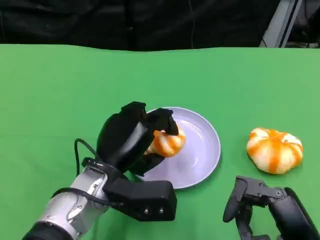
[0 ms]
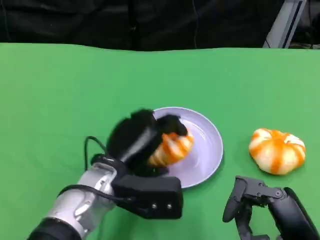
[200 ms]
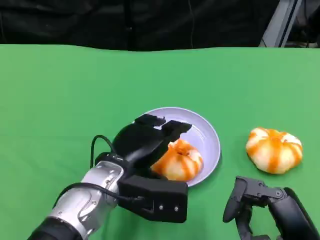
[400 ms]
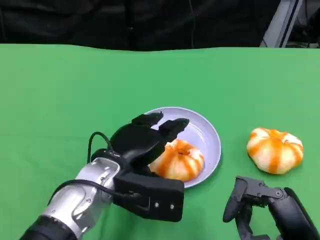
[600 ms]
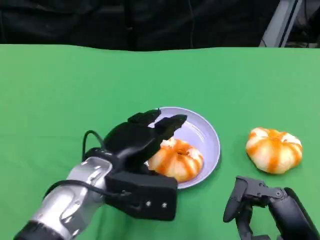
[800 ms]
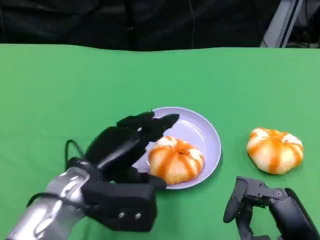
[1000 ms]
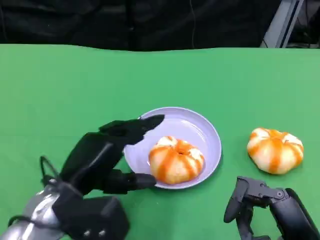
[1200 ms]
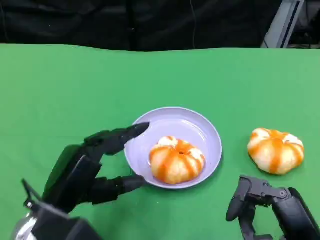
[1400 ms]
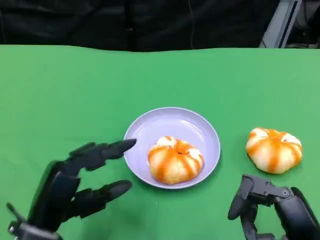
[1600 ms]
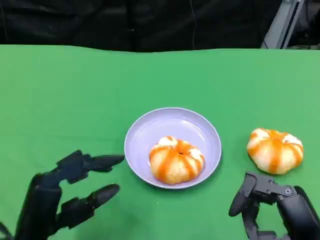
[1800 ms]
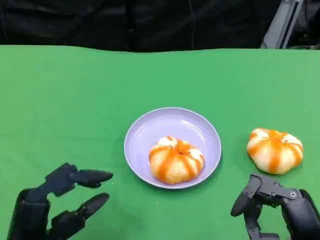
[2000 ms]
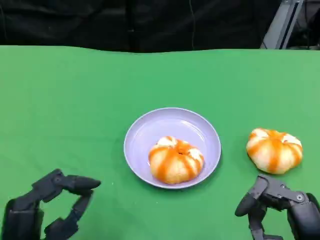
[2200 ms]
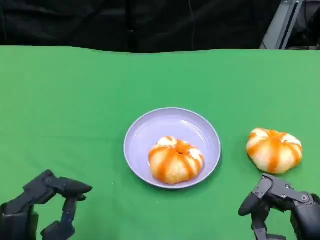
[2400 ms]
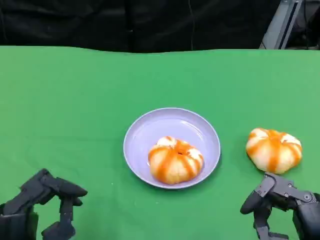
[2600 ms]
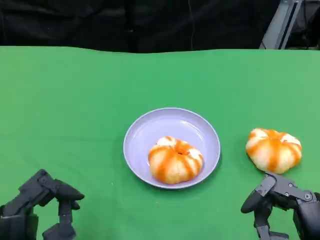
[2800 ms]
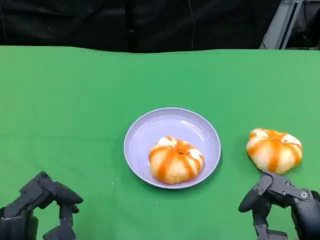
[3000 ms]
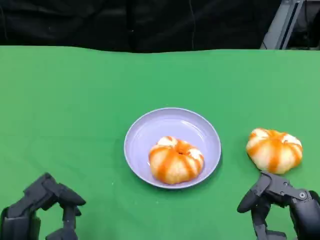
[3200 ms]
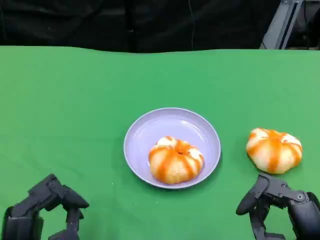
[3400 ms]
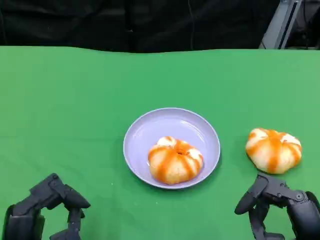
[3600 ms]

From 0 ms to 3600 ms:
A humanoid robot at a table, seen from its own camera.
Task of the whole recording: Grasp the bread from the table and place it into the plate.
From 0 ms to 1800 ms: The left hand moves backward and to the left, roughly 15 cm.
From 1800 ms to 3600 ms: There are only small adjustments of the hands.

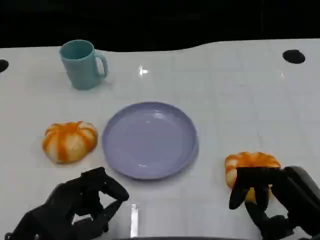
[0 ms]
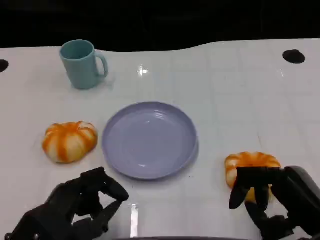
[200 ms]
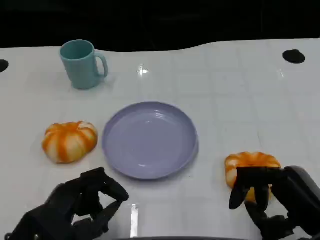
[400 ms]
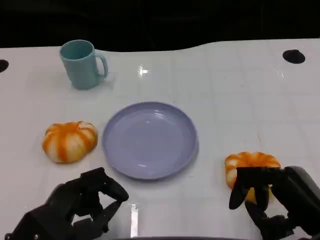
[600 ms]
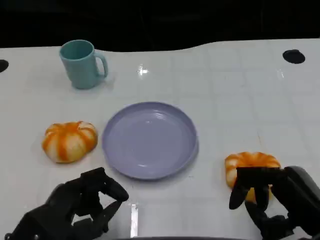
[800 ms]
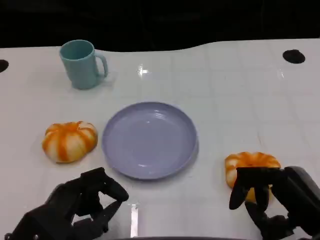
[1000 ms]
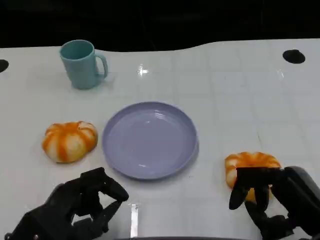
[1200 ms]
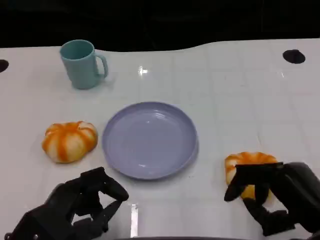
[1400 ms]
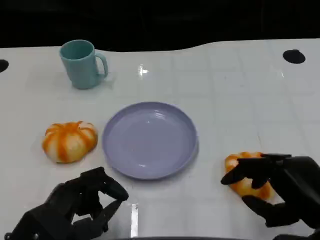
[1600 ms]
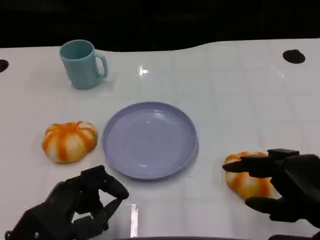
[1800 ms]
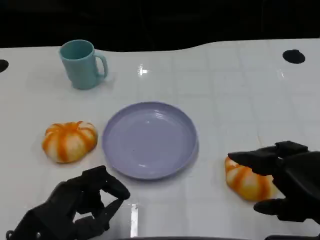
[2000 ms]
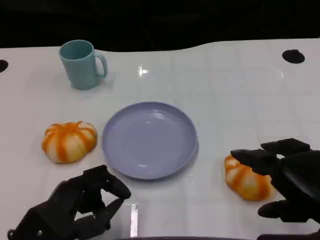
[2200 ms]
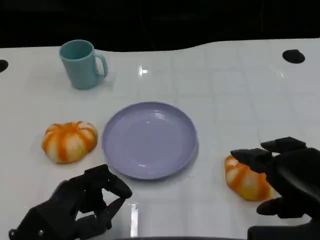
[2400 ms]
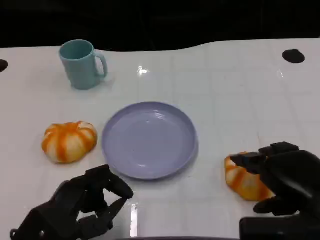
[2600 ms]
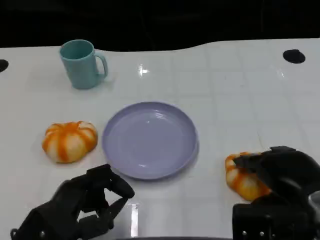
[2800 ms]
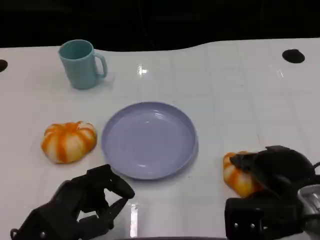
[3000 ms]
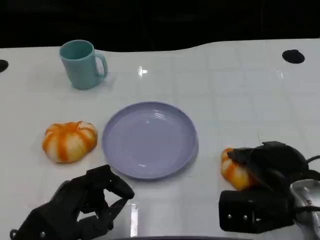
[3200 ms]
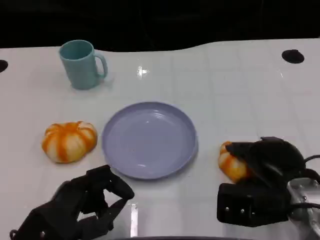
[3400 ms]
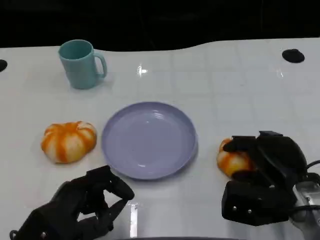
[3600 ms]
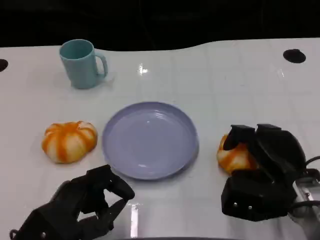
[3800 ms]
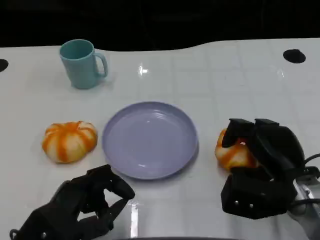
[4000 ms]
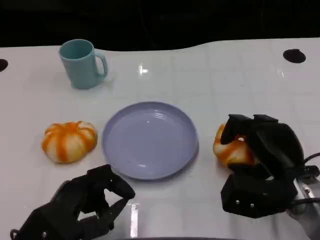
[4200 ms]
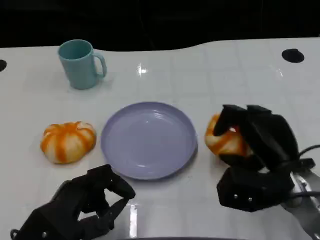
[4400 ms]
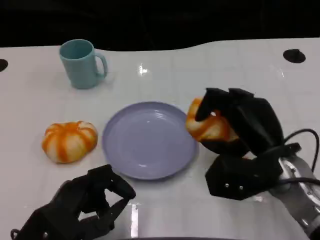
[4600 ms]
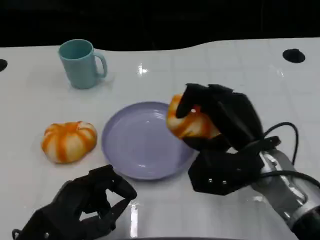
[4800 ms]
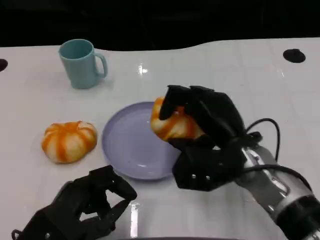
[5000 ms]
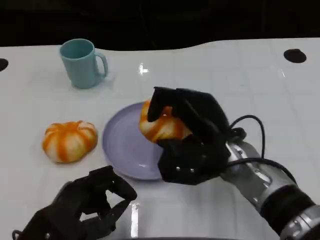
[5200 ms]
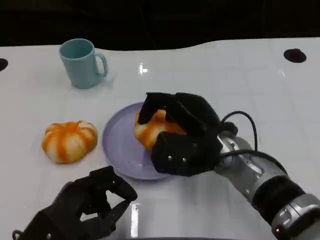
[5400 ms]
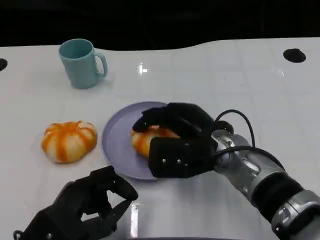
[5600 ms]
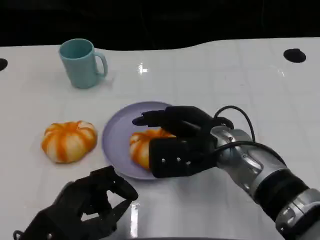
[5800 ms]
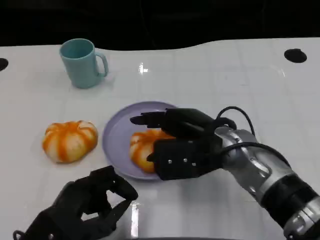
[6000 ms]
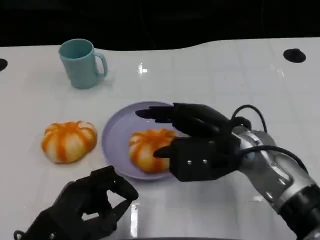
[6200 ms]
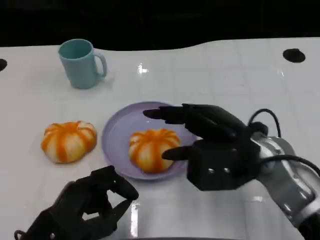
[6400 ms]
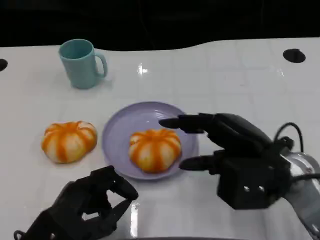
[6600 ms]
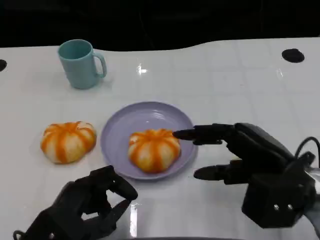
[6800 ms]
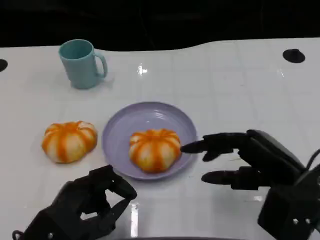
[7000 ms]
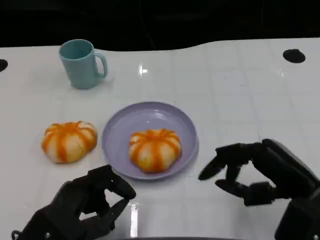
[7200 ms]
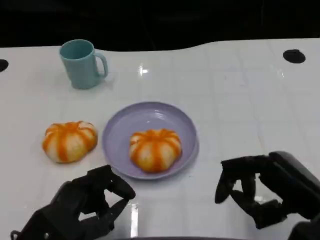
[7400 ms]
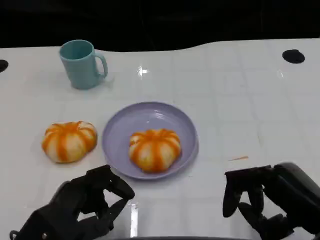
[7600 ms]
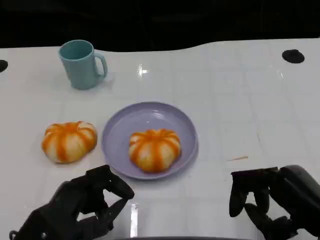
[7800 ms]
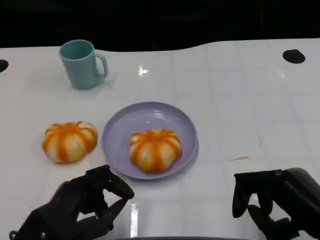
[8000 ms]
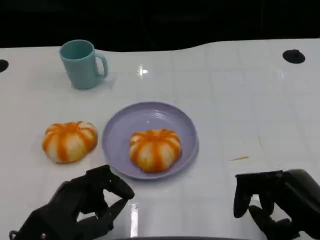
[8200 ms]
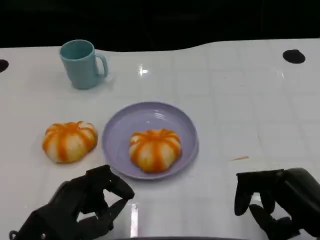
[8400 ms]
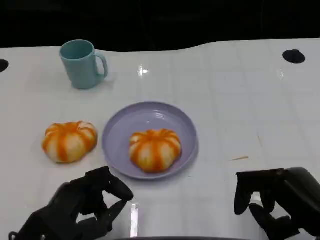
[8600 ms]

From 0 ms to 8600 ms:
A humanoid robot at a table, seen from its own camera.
Task of the whole recording: Grasp the bread from the table and place it into the plate.
From 0 ms to 1400 ms: The hands make only small movements.
From 2800 ms to 4400 ms: The right hand moves approximately 5 cm.
From 4400 ms to 5800 ms: The right hand goes approximately 10 cm to the left.
From 5800 ms to 7200 ms: The right hand goes roughly 15 cm to the right and backward.
From 7200 ms to 8600 ms: The hands stay close to where they were, moving slightly.

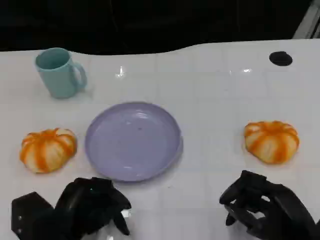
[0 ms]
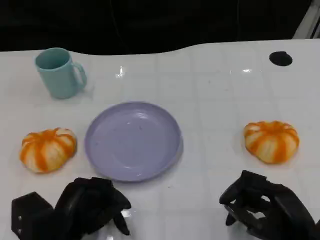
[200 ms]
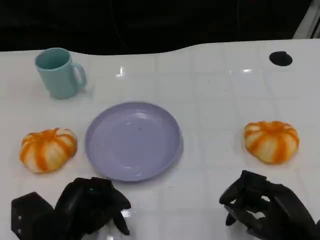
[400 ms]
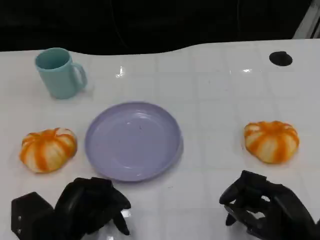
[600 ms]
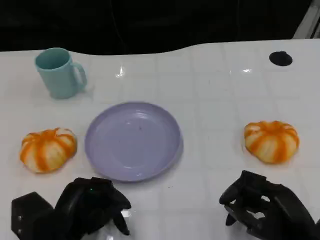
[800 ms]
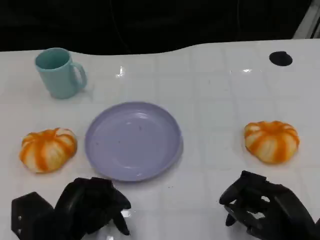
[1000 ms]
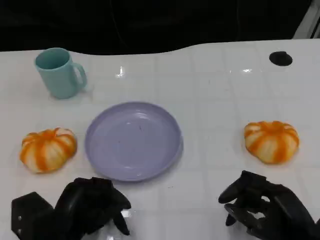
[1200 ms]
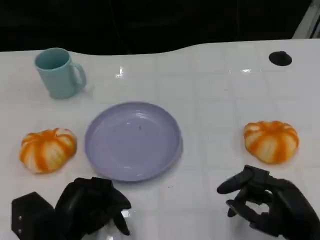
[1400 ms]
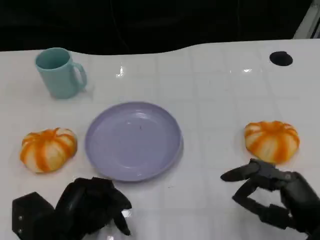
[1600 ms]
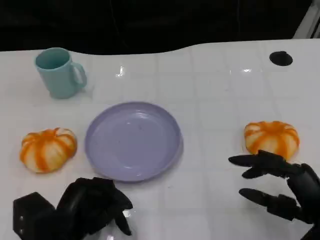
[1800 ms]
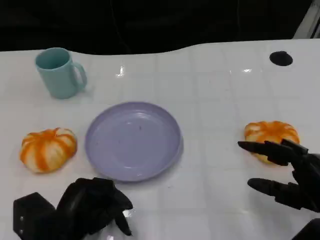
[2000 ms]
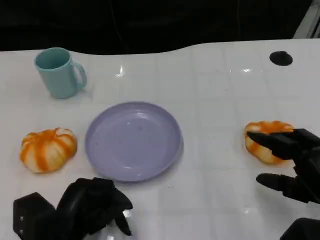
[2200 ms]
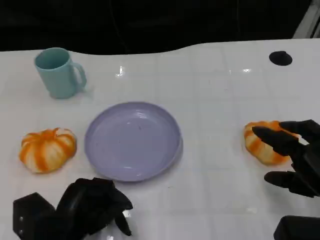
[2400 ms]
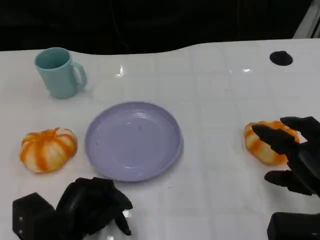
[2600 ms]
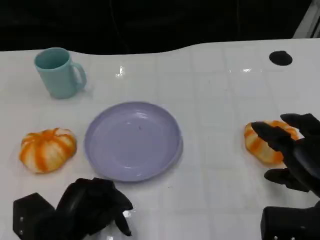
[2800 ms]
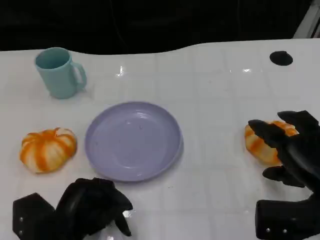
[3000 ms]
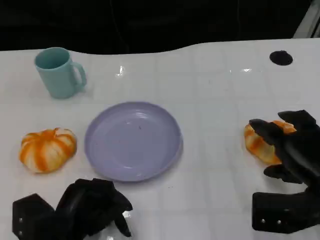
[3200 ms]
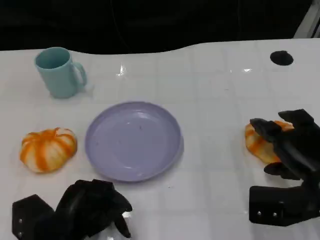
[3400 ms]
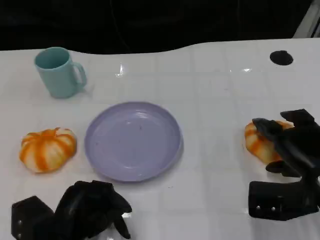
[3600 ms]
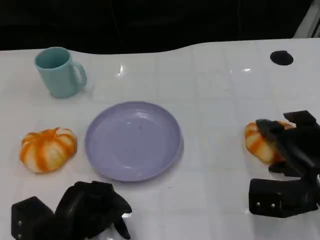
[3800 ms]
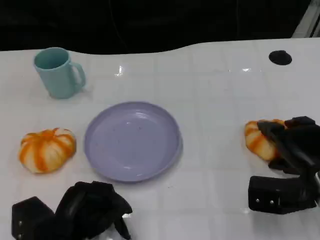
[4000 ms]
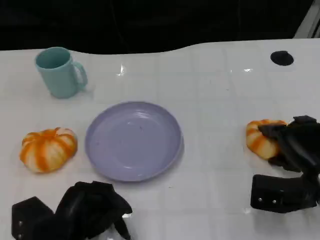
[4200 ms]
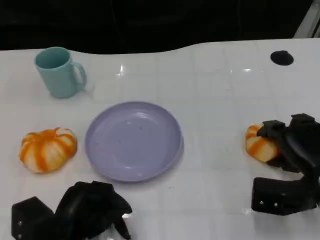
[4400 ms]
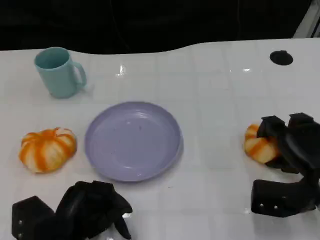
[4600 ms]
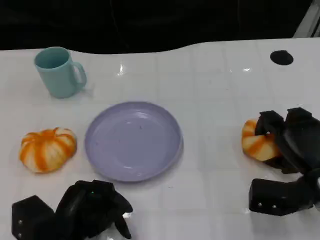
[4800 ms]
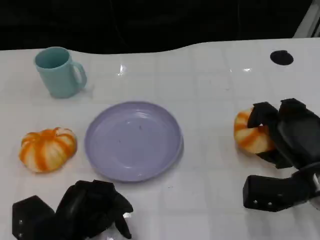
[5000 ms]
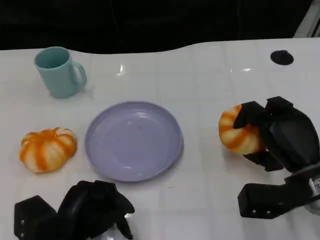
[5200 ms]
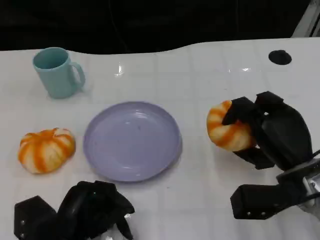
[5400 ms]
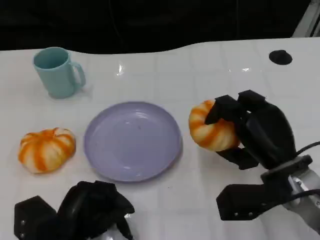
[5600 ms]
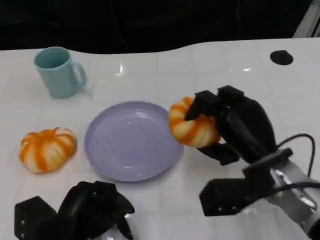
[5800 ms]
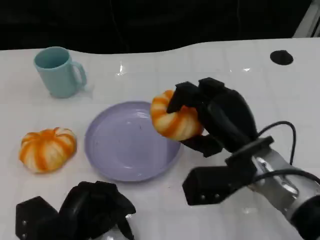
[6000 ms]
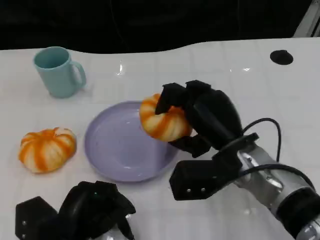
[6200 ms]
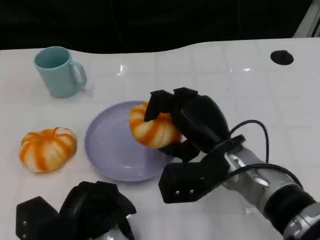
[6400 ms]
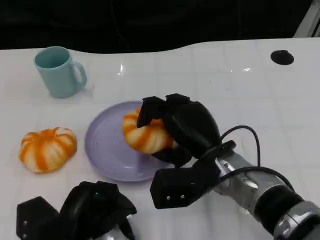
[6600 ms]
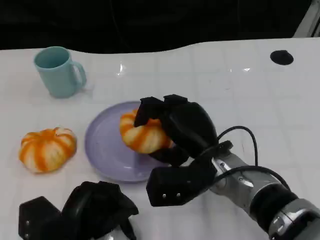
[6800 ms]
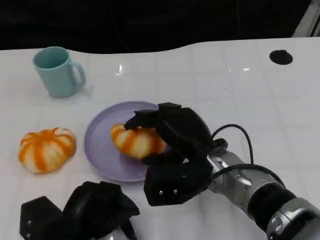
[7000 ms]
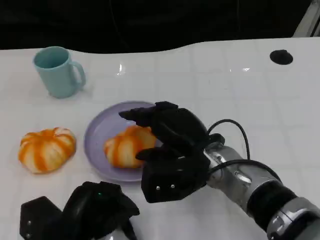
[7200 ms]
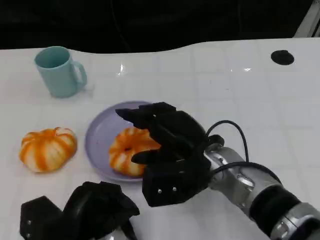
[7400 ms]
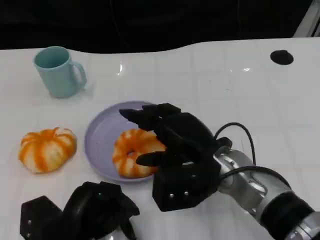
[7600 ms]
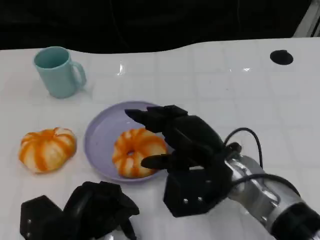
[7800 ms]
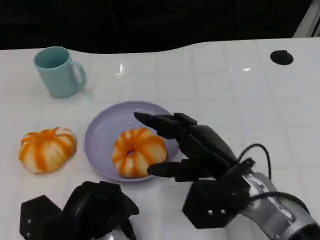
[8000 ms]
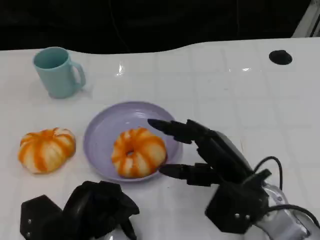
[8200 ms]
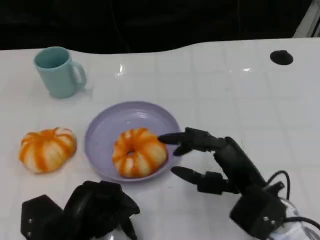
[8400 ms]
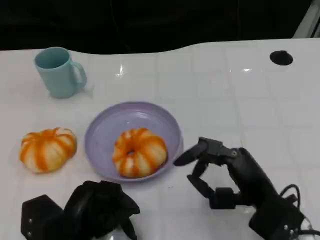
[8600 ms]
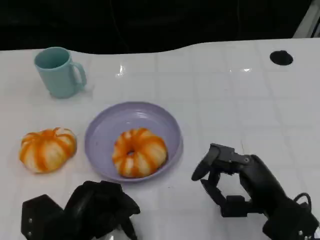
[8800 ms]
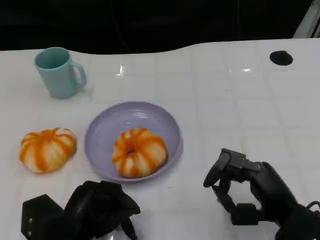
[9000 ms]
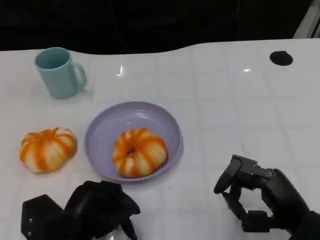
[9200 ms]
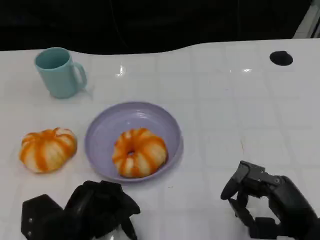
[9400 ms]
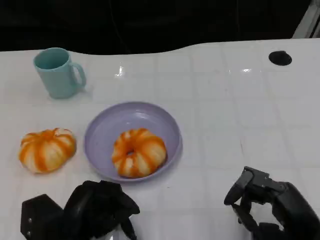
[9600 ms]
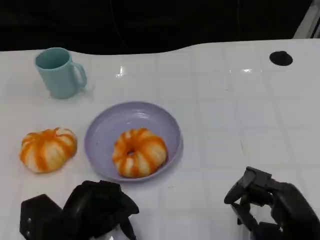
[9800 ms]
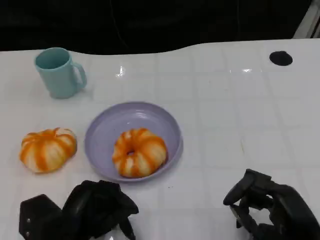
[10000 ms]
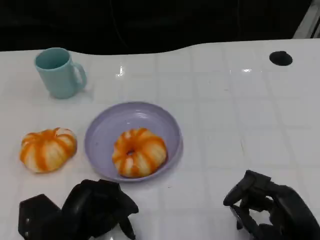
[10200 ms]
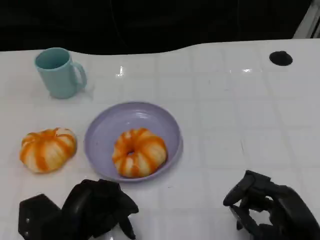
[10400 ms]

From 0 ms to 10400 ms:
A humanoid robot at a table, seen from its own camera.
Task of the whole recording: Grasp the bread from the table and place it into the plate.
From 0 ms to 1400 ms: The hands move only a little.
From 1400 ms to 3000 ms: The right hand moves forward, roughly 5 cm.
From 3000 ms to 4400 ms: The right hand ends up approximately 5 cm from where it was.
From 4400 ms to 6000 ms: The right hand shifts approximately 15 cm to the left and upward.
From 6000 ms to 7400 ms: The right hand moves to the left, roughly 5 cm.
From 7400 ms to 9000 ms: The right hand shifts roughly 15 cm to the right and backward.
From 9000 ms to 10400 ms: There are only small adjustments of the hands.
